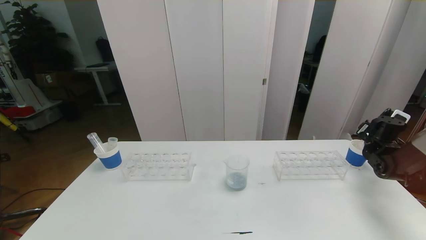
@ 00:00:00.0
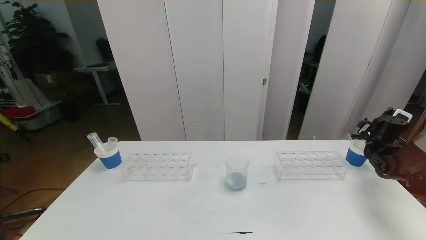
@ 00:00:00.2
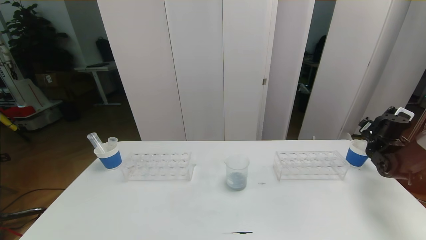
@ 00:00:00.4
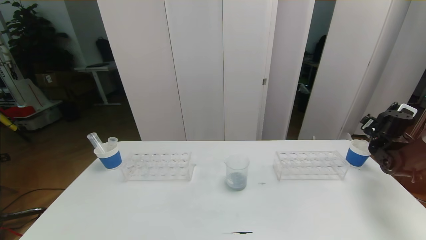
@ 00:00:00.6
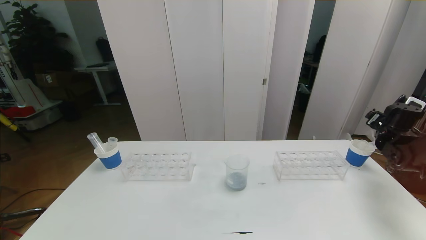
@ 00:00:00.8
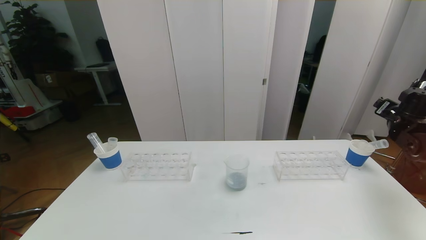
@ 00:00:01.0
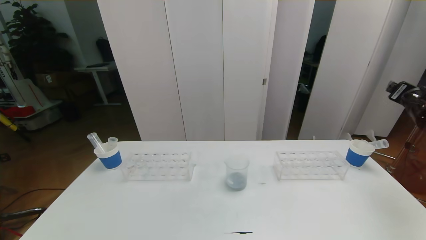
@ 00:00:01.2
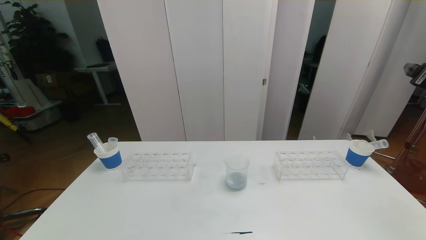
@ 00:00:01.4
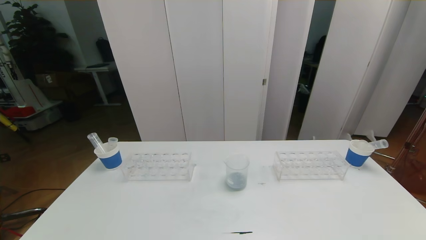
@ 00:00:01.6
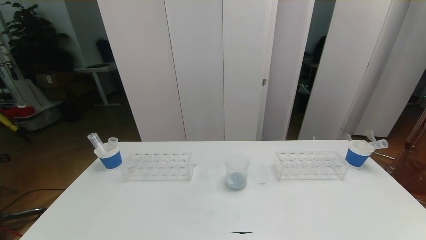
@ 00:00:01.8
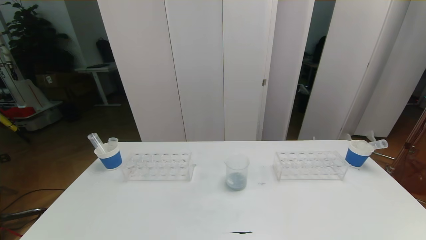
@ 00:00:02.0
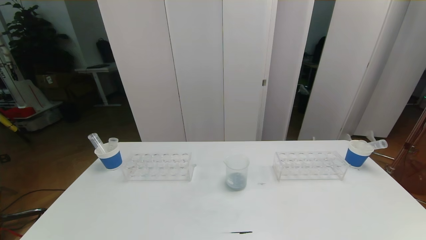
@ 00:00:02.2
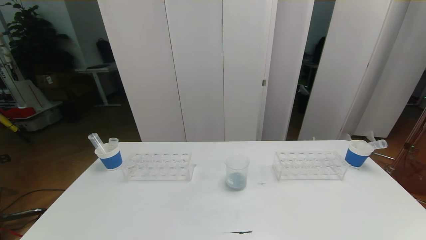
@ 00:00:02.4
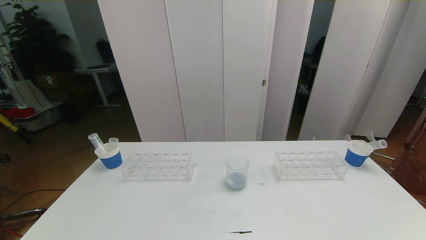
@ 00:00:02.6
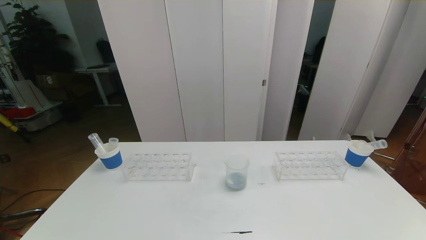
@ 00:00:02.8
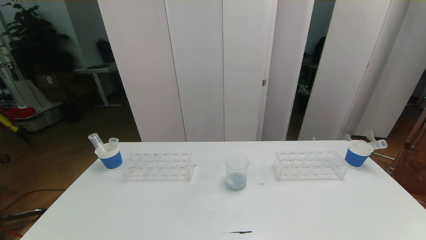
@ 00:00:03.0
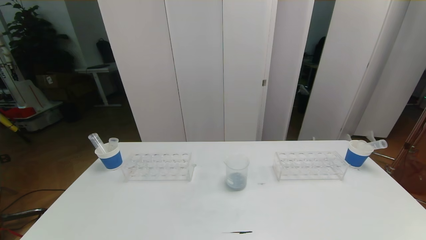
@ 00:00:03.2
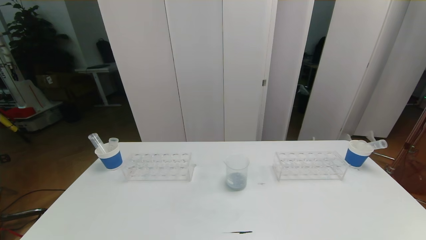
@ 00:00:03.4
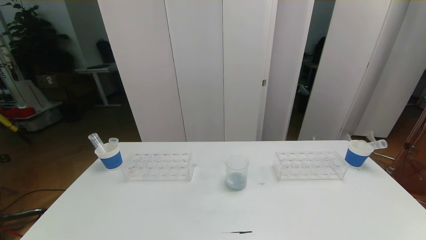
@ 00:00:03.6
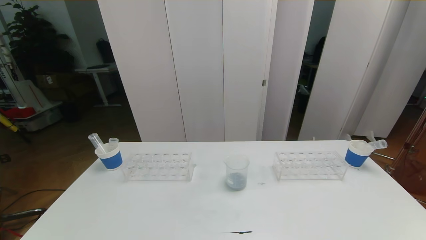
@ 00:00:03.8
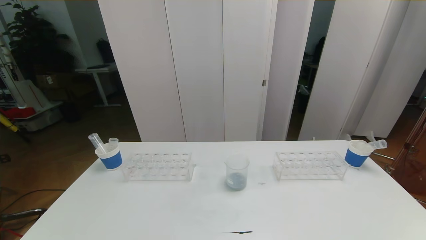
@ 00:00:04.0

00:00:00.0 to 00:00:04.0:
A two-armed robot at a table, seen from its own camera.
Task of the whole recording: pick up the test tube with red pigment the test tube with blue pigment and the test tube with white pigment by grippers and pour them into the beaker.
Step, 00:00:00.0 to 00:00:04.0: Pour the white reagent into the graduated cylinder and place the test tube into the paper cup.
00:00:00.0 to 00:00:01.4: The right gripper moves upward and backward, approximately 25 cm.
00:00:01.4 to 00:00:02.6: The right gripper goes approximately 30 cm backward.
